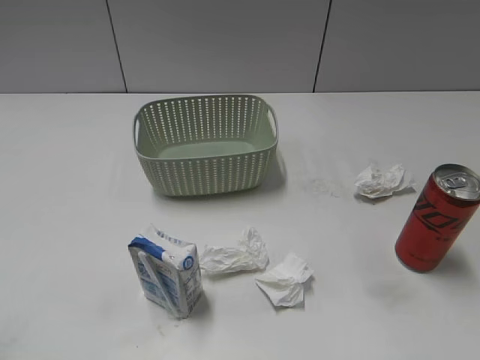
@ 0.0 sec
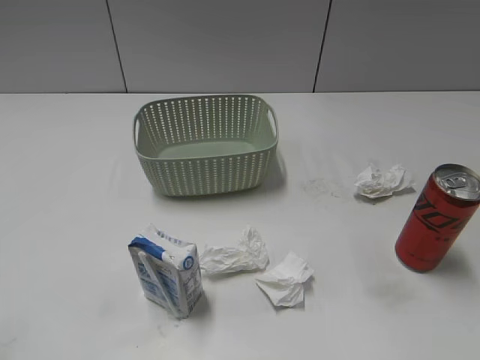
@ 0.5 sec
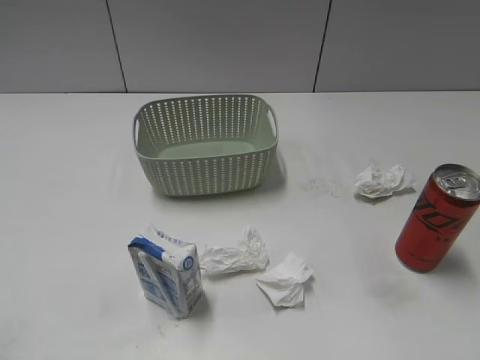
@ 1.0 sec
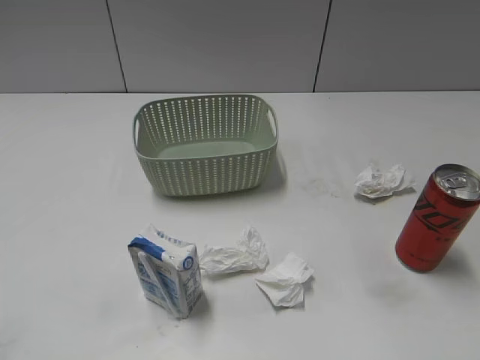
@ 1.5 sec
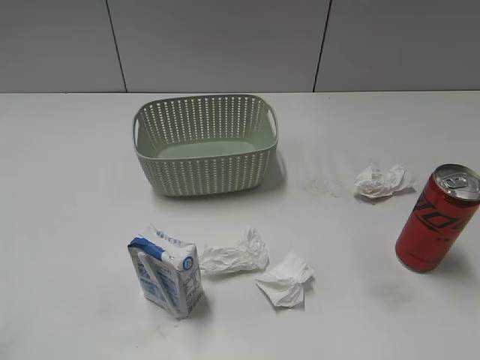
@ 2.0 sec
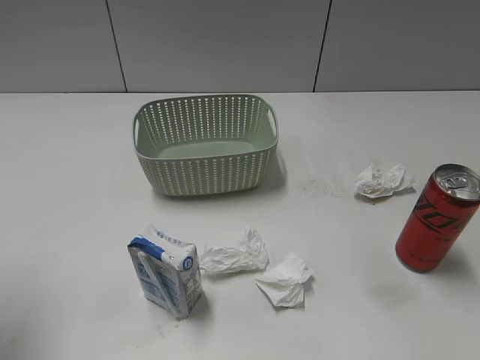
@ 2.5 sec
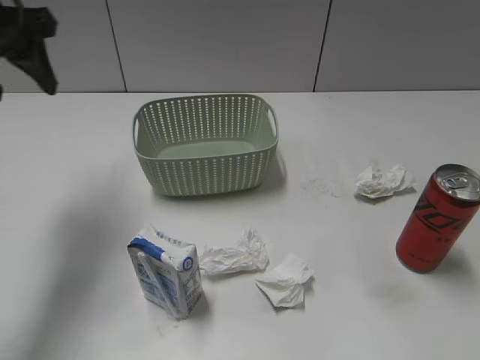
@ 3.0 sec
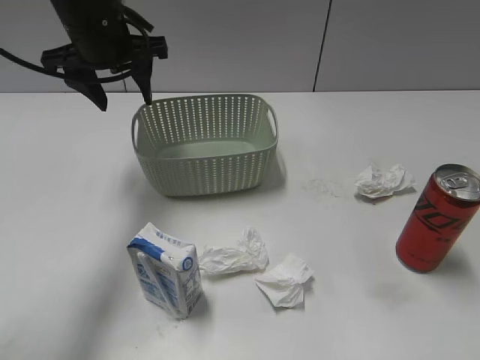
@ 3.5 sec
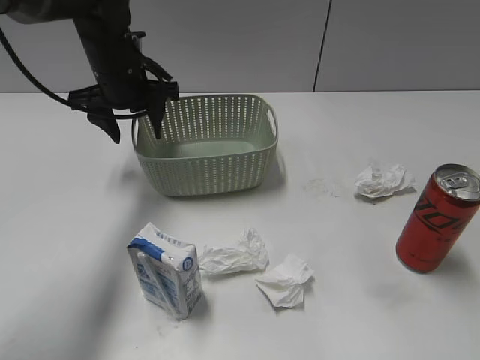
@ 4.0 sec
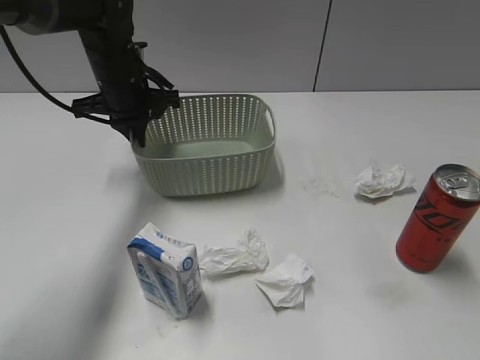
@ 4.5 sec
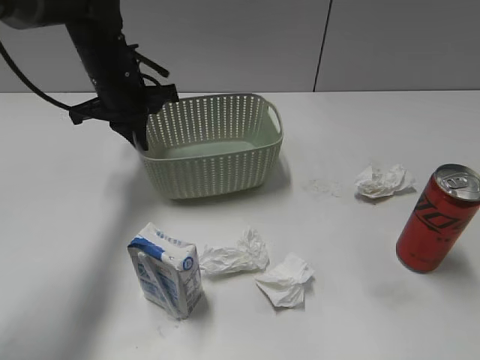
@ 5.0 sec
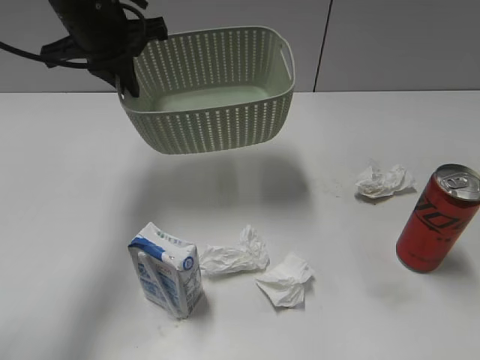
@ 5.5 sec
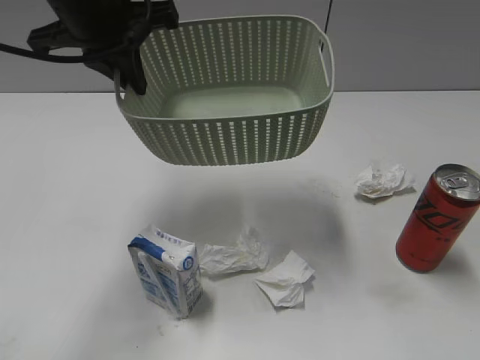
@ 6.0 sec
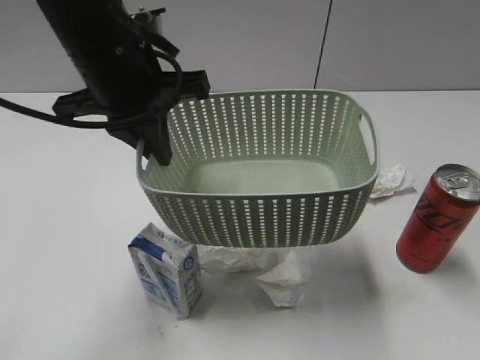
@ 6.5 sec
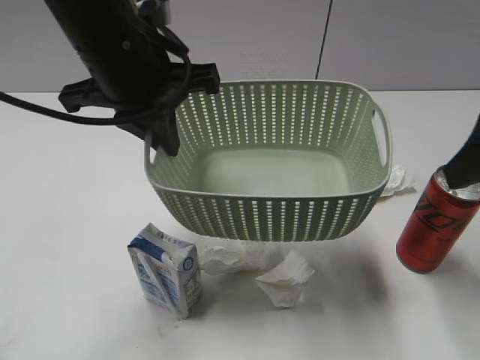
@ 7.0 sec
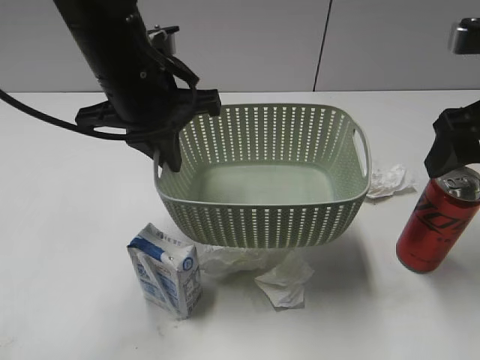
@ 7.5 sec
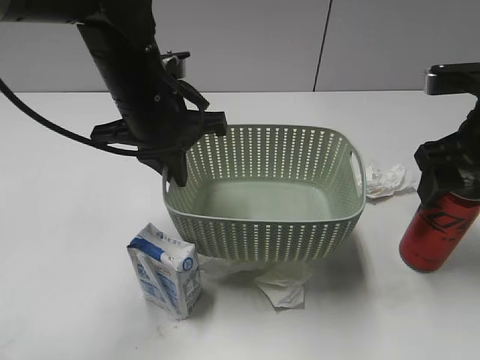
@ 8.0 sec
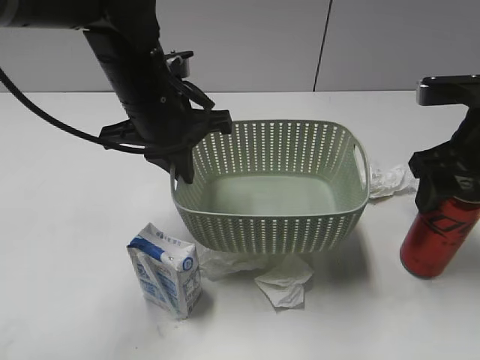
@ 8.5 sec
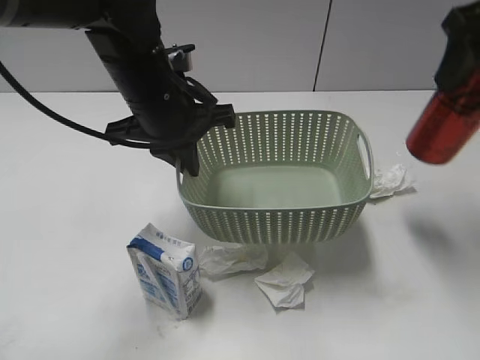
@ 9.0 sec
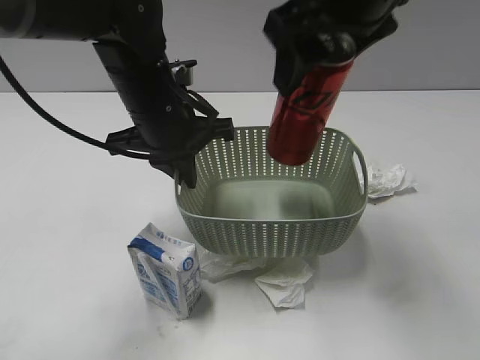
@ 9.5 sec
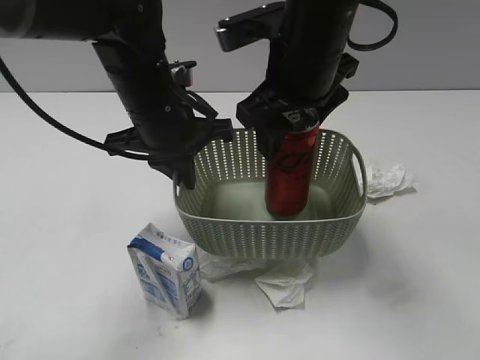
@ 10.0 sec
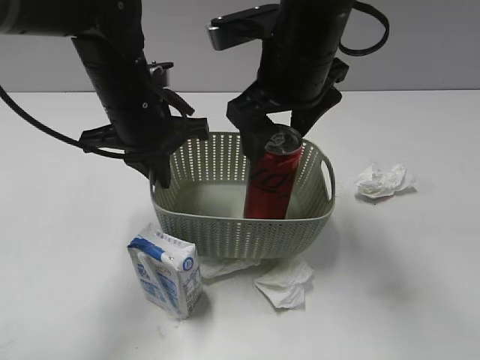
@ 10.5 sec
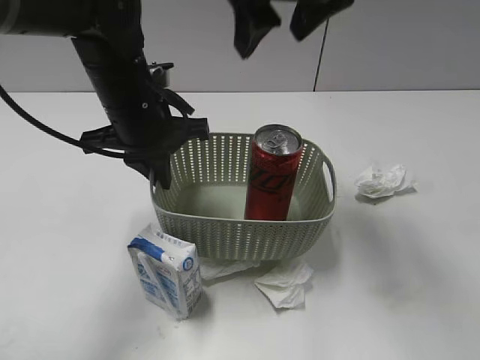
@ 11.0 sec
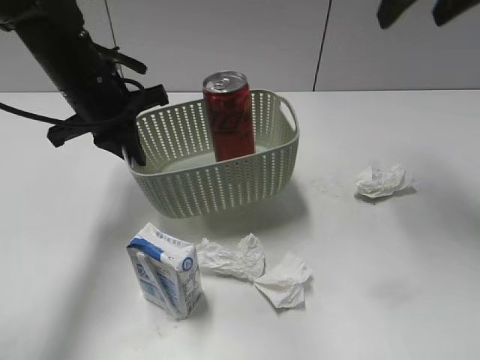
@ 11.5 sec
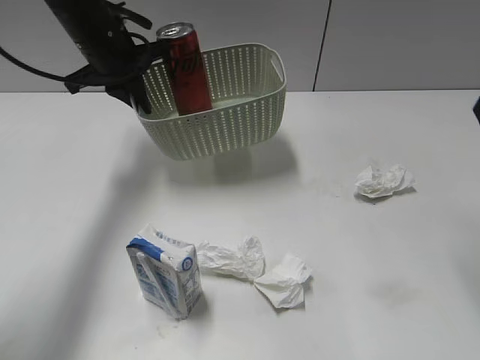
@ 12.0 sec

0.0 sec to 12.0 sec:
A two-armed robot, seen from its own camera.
Step, 3.0 sec to 4.5 sec: Grasp the basket with left gripper.
Step, 5.0 sec to 6.5 sec: Lift the basket with left gripper.
Step, 7.0 sec to 8.0 sec: Grasp the cola can with right gripper.
Step, 8.5 sec to 10.0 sec: Place the cola can in the basket with right gripper.
2.0 sec to 4.0 sec: The left gripper is displaced forward and to the right by roughly 40 cm.
4.0 sec to 6.0 sec: The left gripper heads upward and backward, covering roughly 15 cm, and closes its fingers.
6.0 sec to 8.0 sec: The right gripper travels forward by about 25 cm, and opens up; the left gripper heads downward, covering about 10 cm.
8.0 sec to 10.0 sec: The right gripper heads to the left, covering about 20 cm, and closes.
10.0 sec to 12.0 sec: The right gripper goes about 20 cm to the right, and opens; the left gripper is displaced forward and to the left by approximately 15 cm.

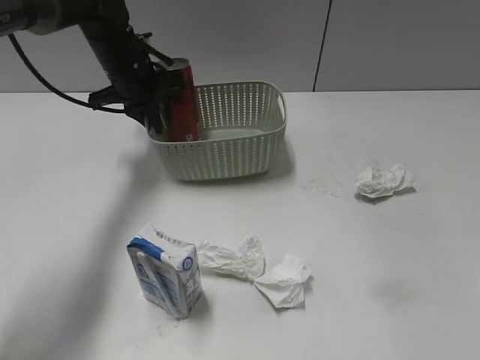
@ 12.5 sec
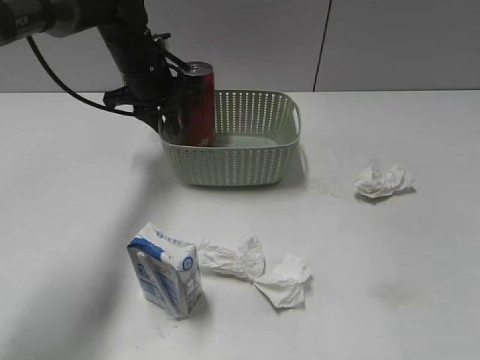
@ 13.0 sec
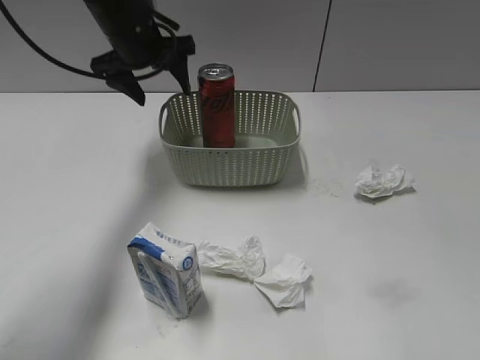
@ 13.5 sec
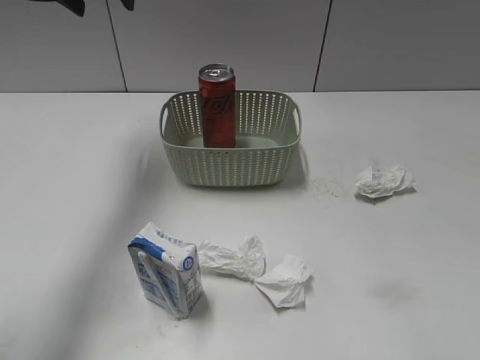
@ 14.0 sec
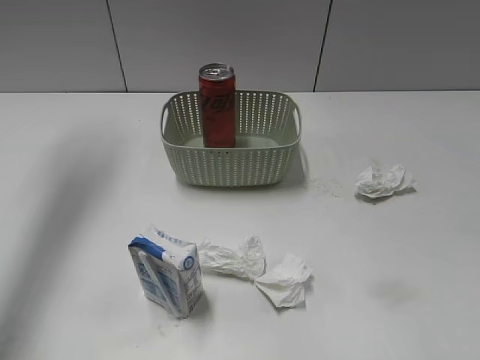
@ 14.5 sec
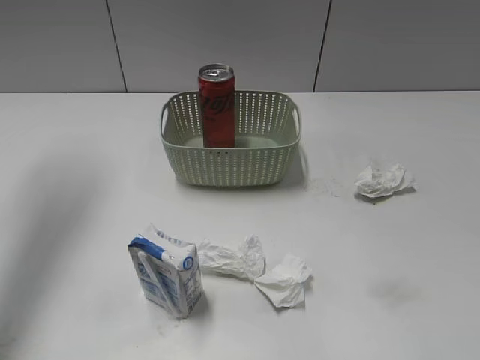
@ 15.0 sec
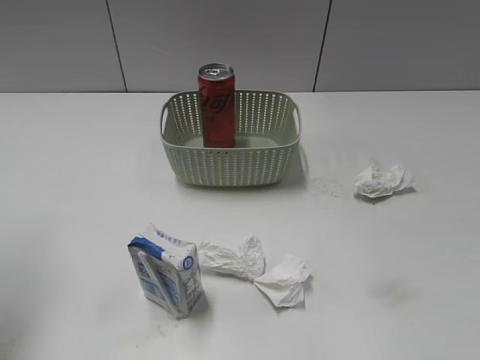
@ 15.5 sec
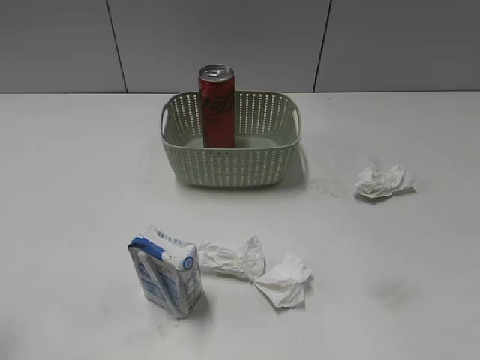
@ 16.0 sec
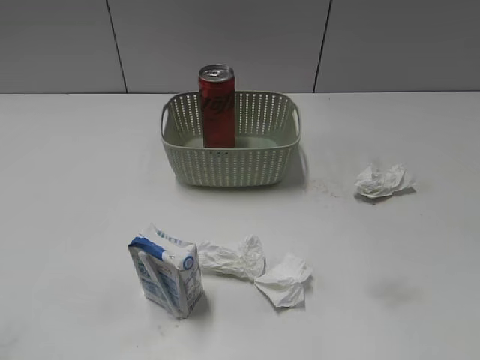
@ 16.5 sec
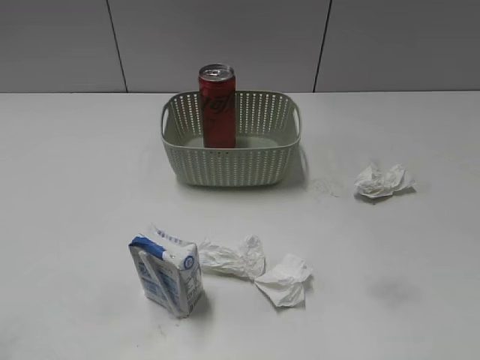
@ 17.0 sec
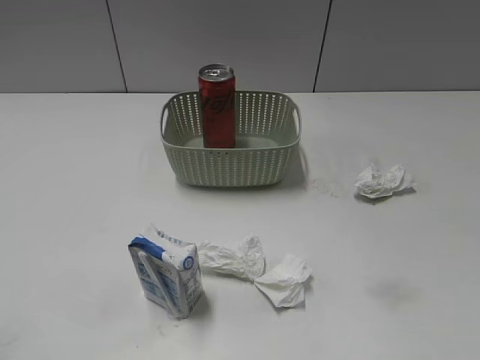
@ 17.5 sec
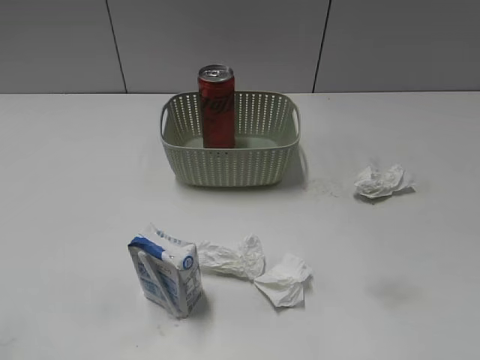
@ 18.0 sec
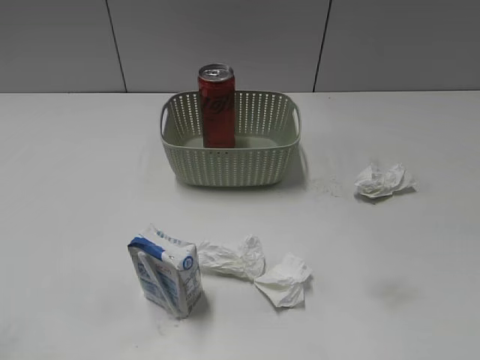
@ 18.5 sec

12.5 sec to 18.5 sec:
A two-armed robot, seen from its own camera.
12.5 sec to 14.5 sec: The right gripper moves downward, roughly 5 cm, while the left gripper travels upward and to the left by approximately 25 cm, and opens its fingers.
14.5 sec to 16.5 sec: The left gripper is displaced backward by approximately 40 cm.

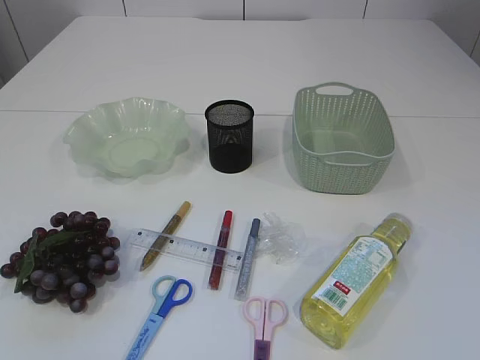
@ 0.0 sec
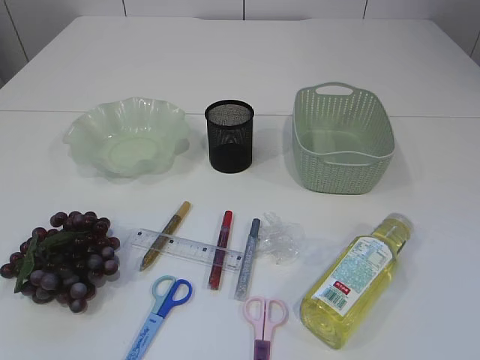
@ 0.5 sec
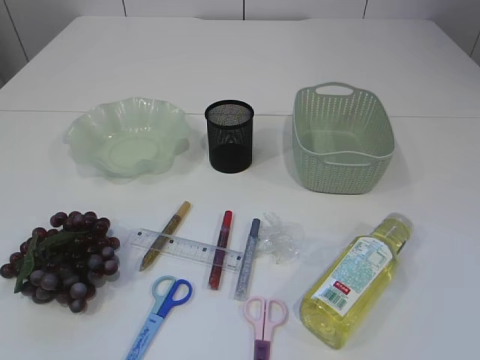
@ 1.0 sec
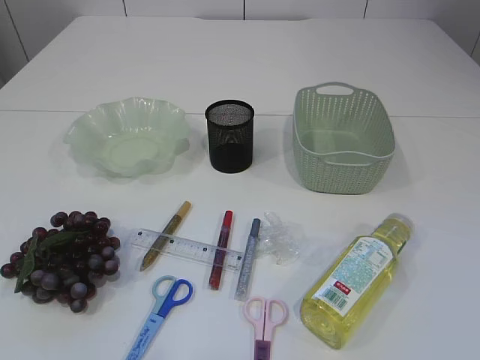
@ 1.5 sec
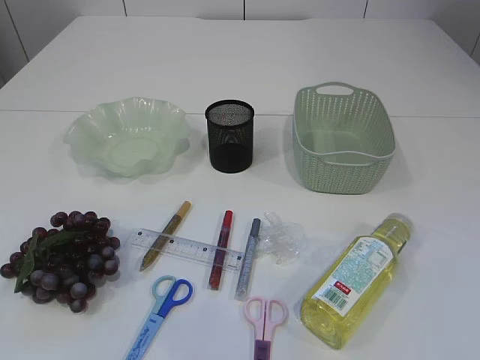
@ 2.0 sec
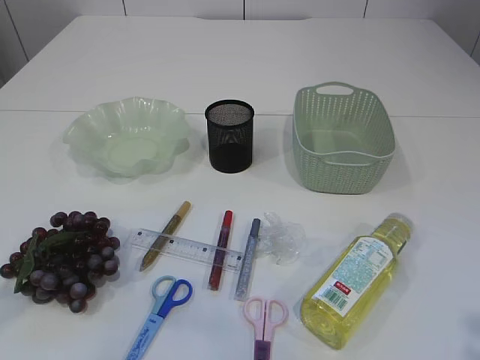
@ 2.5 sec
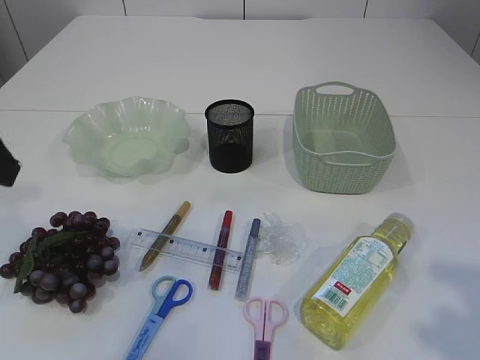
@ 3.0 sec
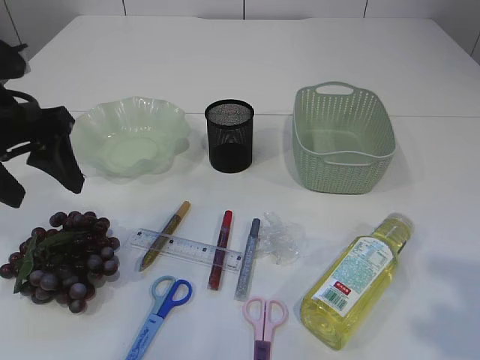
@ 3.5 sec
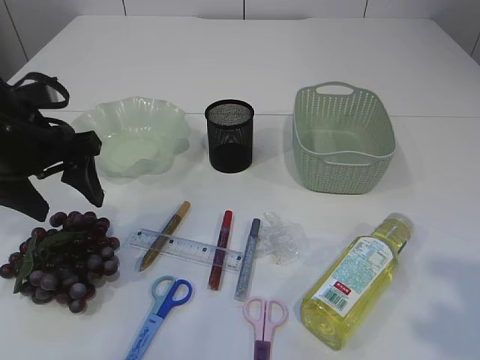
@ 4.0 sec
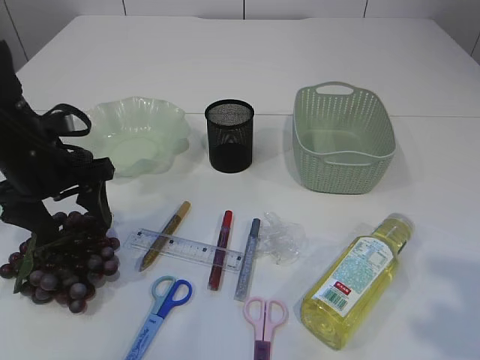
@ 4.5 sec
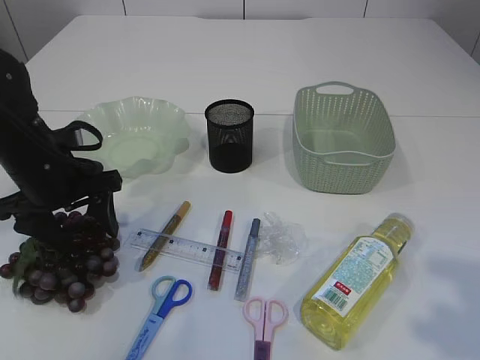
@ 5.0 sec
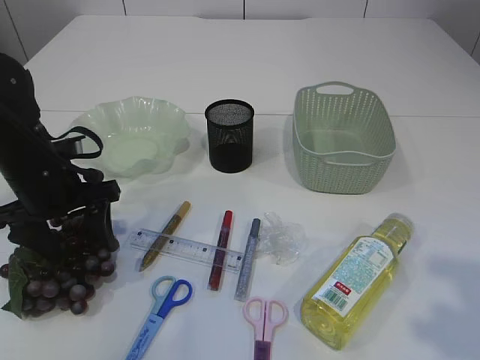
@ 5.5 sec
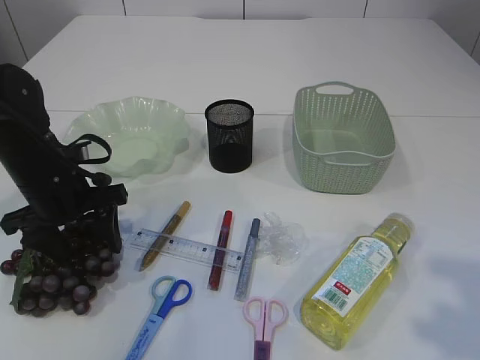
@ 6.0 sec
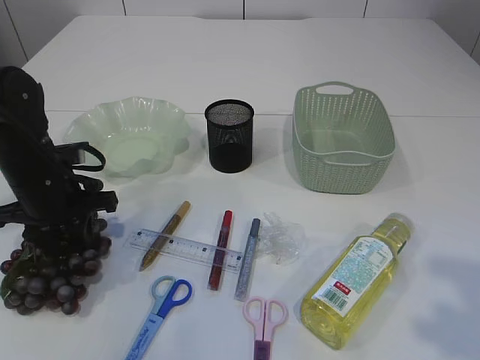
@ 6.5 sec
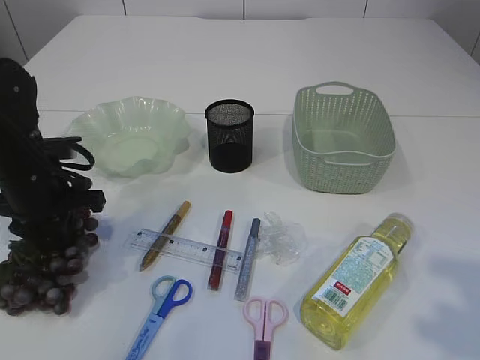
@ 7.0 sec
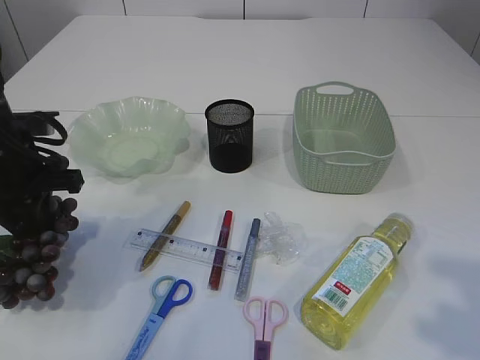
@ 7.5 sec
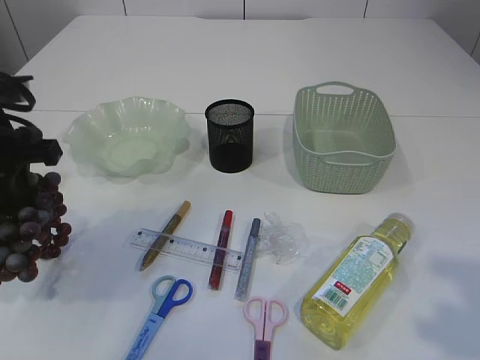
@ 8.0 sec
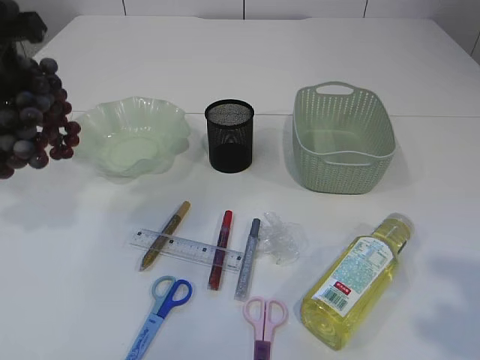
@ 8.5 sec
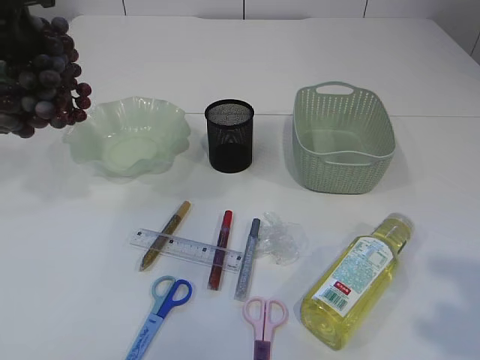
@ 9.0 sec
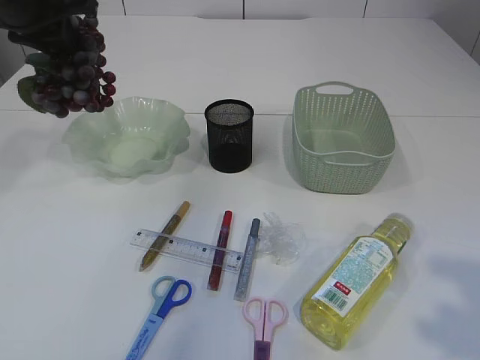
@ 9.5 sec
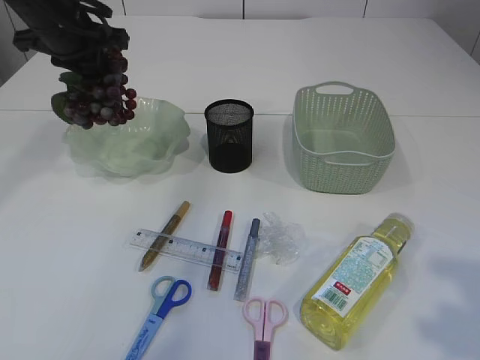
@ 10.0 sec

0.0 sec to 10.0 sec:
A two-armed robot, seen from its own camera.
Step, 0.0 sec to 8.0 sec: Pick up the grapes.
2.0 sec to 4.0 sec: The left gripper moves forward and downward, roughly 30 cm, while the right gripper goes about 10 cm forward and upward.
4.0 sec to 6.0 sec: The left gripper heads downward, covering about 10 cm.
6.0 sec to 8.0 sec: The left gripper shifts some 10 cm upward, and closes up.
8.0 sec to 10.0 sec: The left gripper shifts roughly 15 cm forward.
